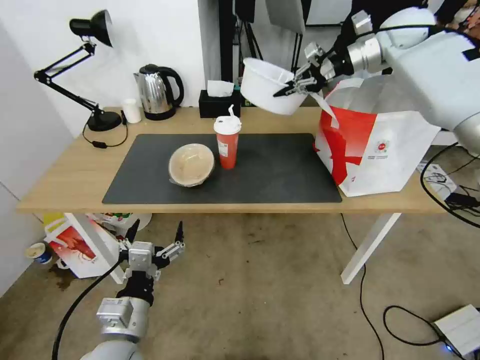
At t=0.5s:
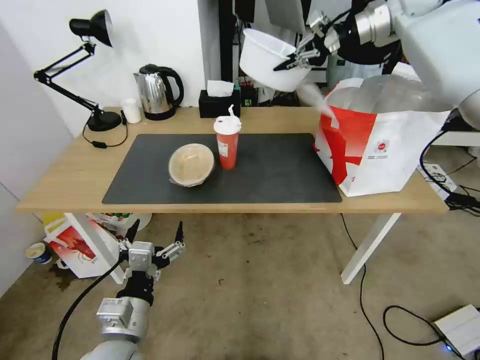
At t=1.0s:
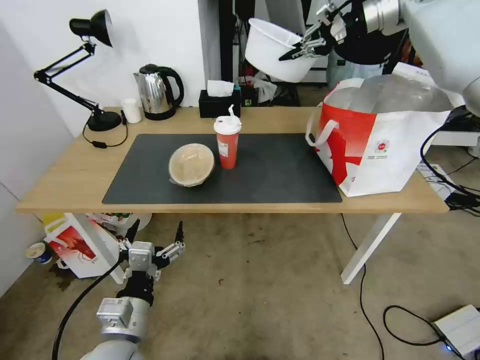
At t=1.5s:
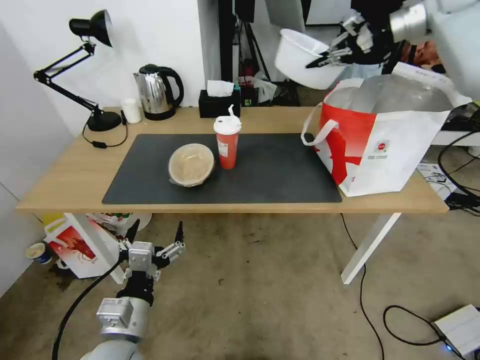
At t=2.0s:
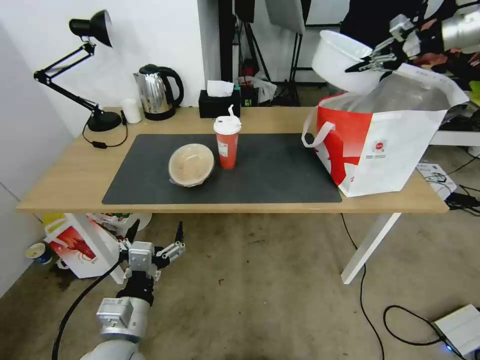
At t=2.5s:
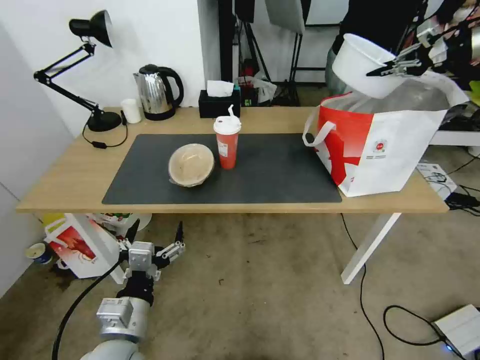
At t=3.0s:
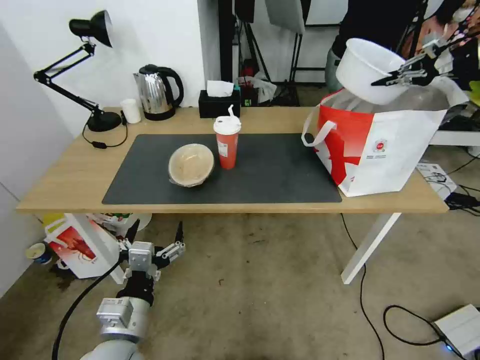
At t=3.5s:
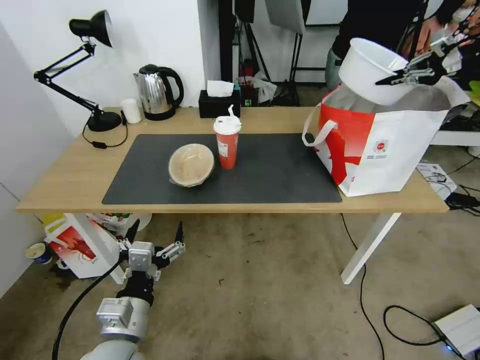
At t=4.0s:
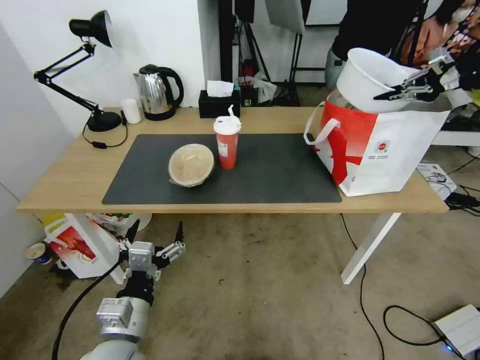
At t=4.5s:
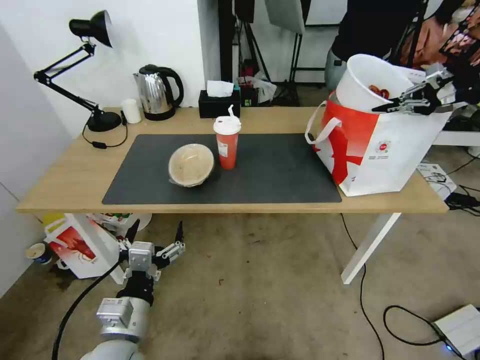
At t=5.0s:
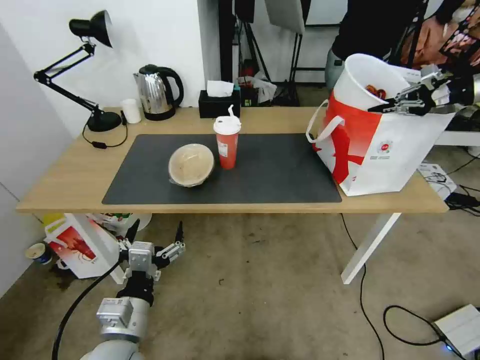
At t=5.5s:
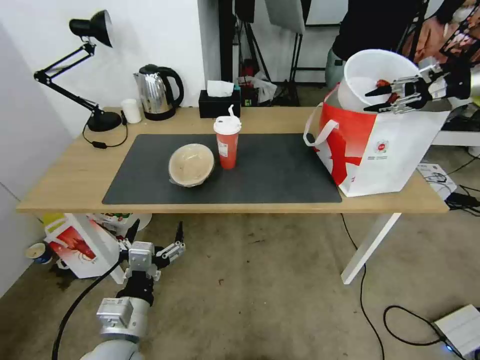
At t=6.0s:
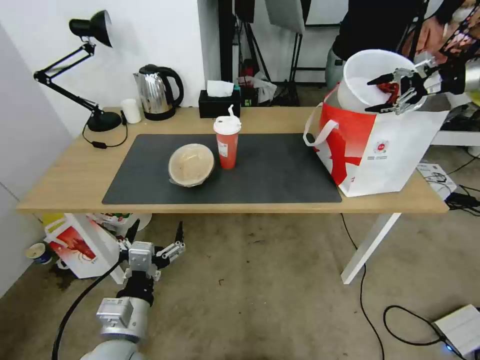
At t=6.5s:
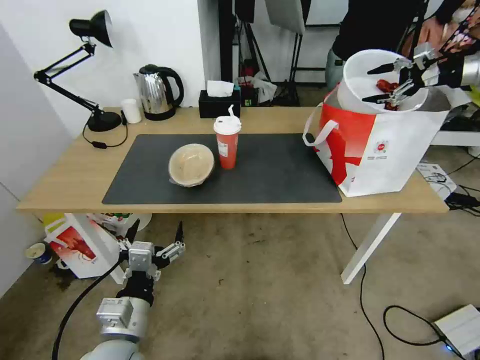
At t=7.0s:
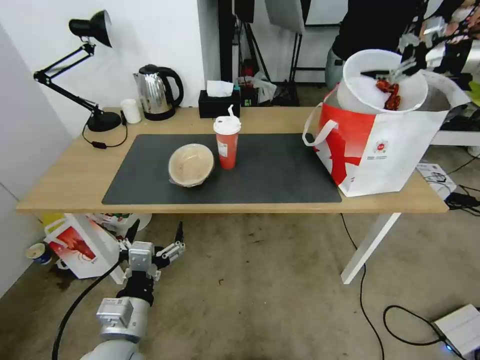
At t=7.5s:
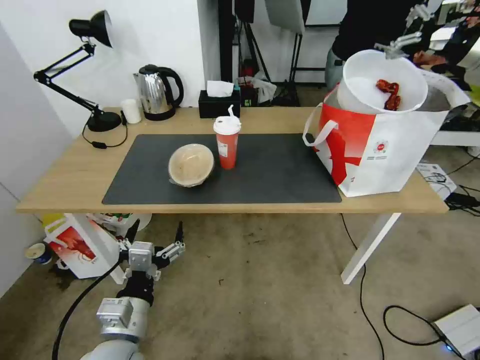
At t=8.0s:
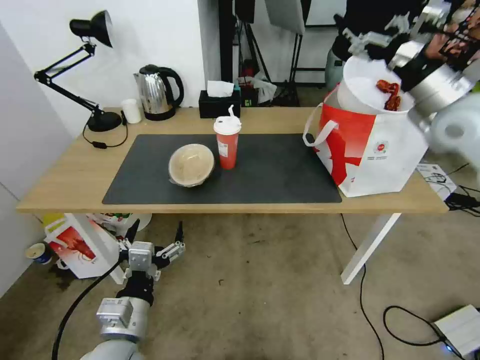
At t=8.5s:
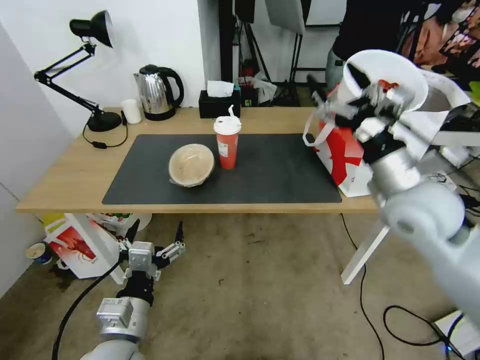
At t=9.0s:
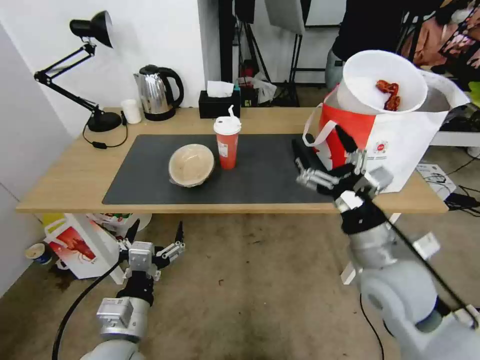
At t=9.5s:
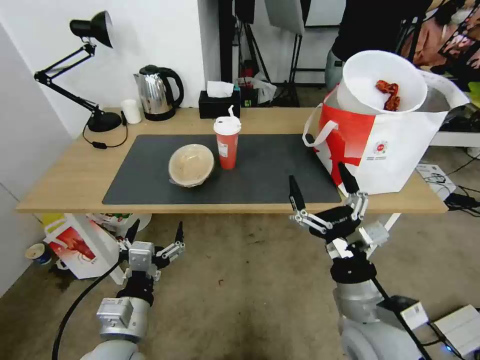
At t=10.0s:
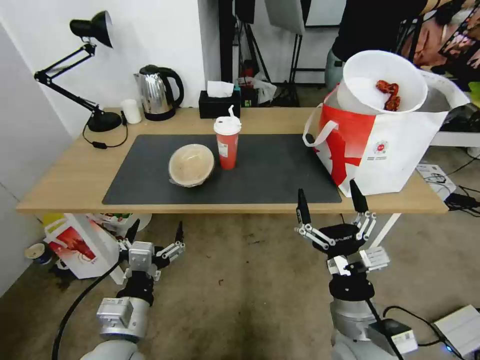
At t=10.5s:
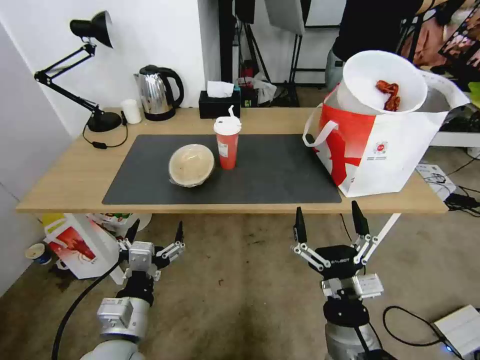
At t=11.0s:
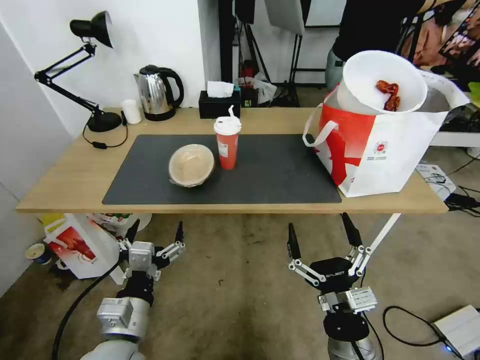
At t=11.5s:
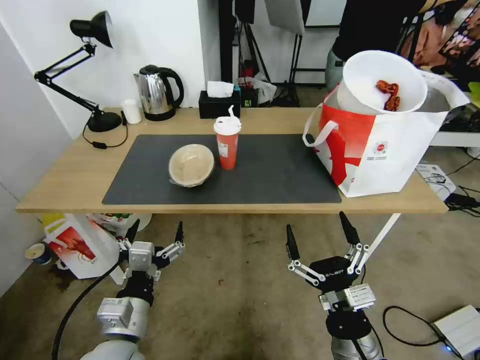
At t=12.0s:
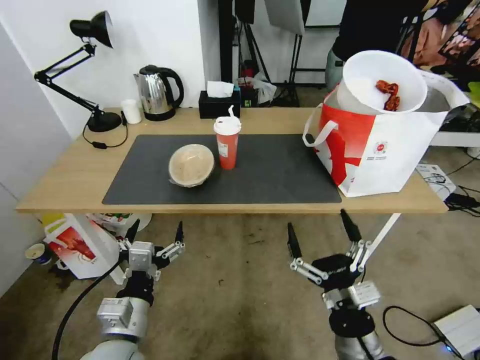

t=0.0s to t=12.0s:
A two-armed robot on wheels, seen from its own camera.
Task of the whole recording: Pick up the trash from the table and place it into the takeout bag.
t=0.0s to t=2.0s: The right gripper travels to the right by approximately 15 cm.
t=2.0s to t=4.0s: The right gripper is displaced backward, to the right and downward by some 10 cm.
t=4.0s to t=6.0s: The right gripper opens up.
t=6.0s to t=8.0s: The right gripper shifts roughly 25 cm to the left and backward.
t=8.0s to t=10.0s: The right gripper moves backward, downward and to the left, roughly 40 cm.
t=10.0s to t=12.0s: The right gripper changes place by approximately 5 cm.

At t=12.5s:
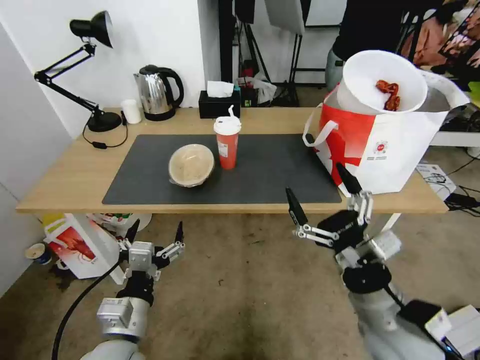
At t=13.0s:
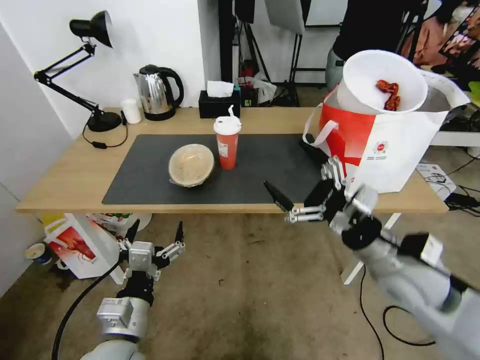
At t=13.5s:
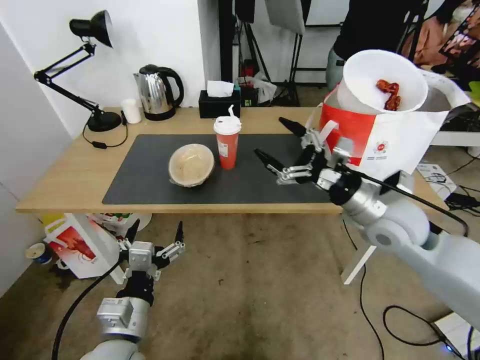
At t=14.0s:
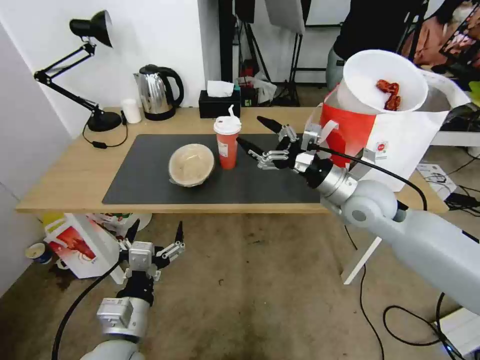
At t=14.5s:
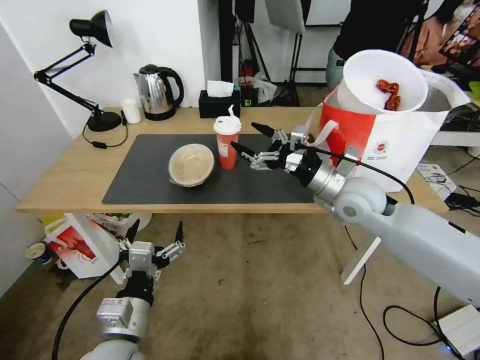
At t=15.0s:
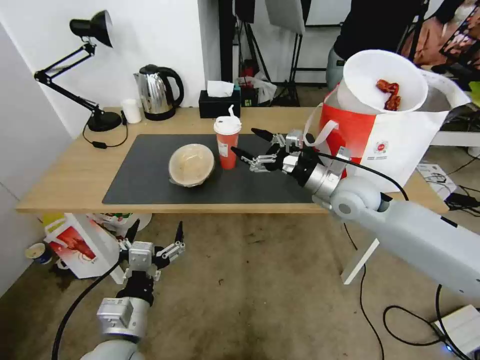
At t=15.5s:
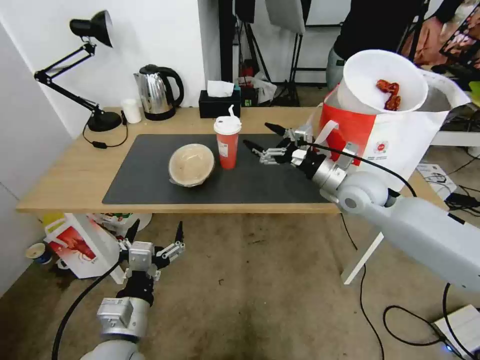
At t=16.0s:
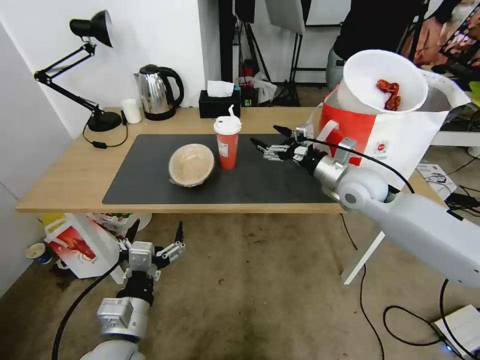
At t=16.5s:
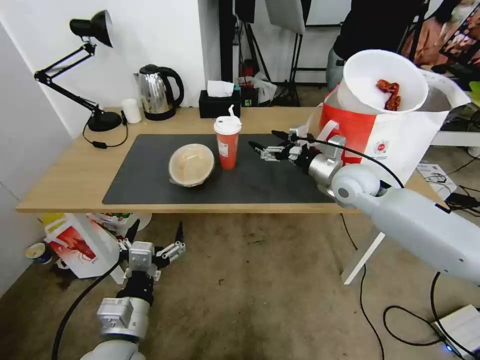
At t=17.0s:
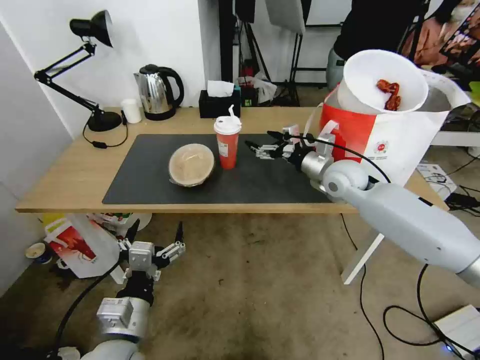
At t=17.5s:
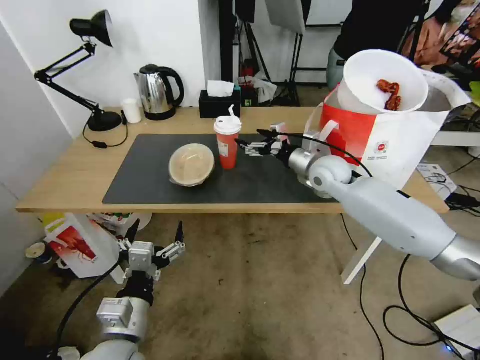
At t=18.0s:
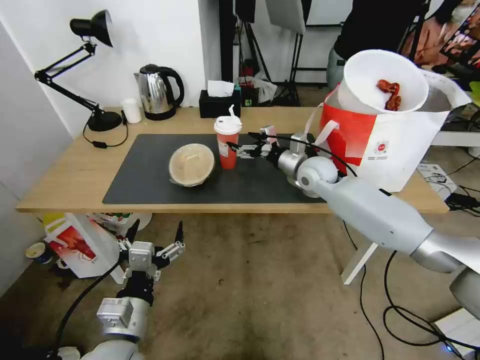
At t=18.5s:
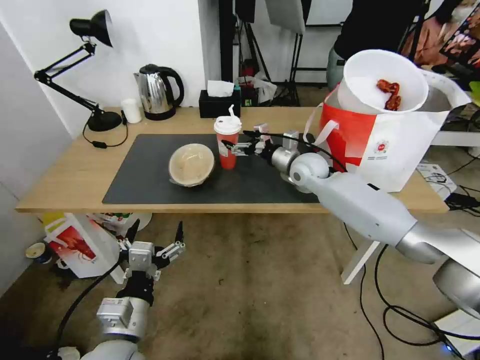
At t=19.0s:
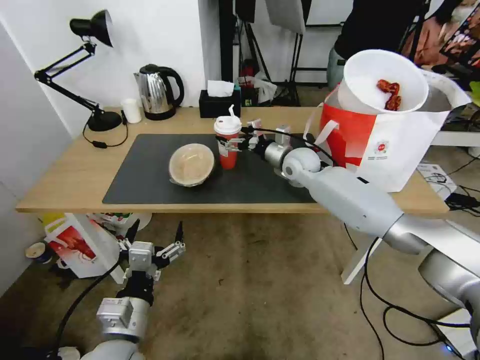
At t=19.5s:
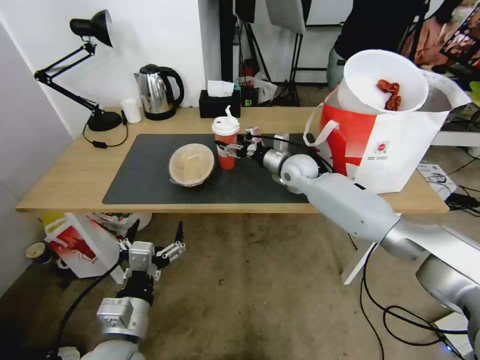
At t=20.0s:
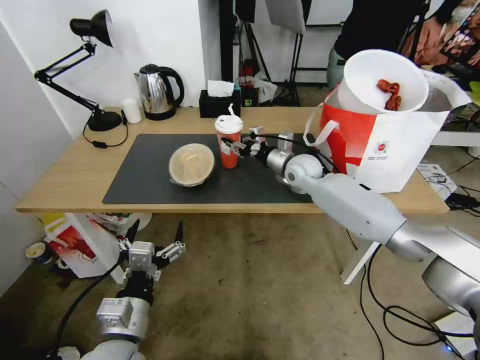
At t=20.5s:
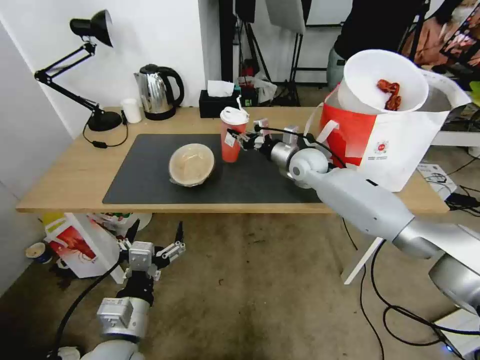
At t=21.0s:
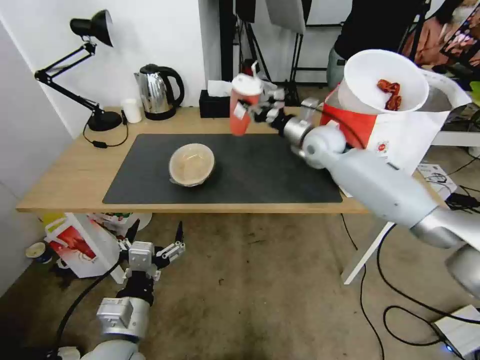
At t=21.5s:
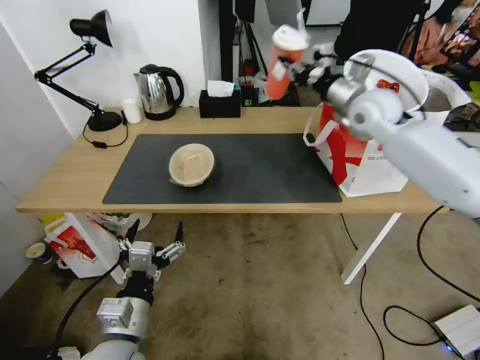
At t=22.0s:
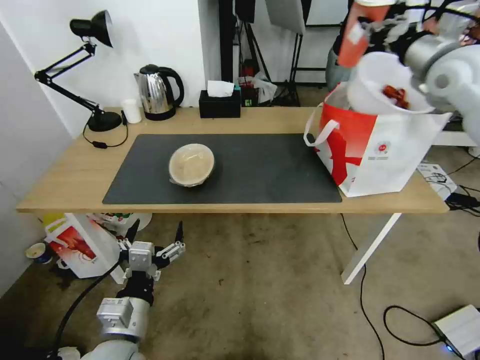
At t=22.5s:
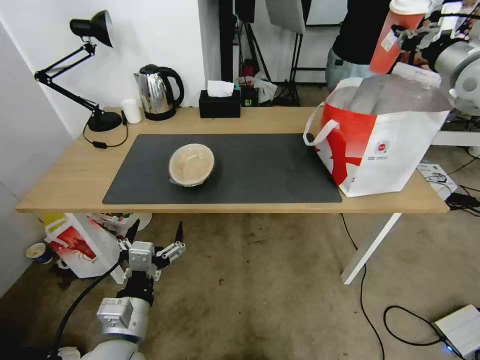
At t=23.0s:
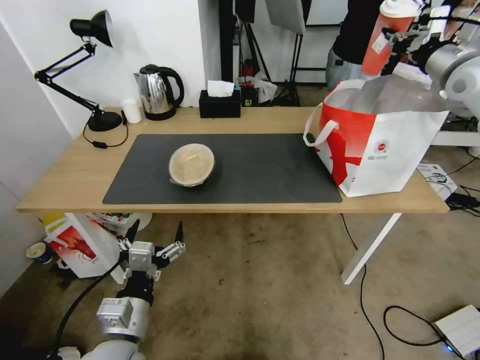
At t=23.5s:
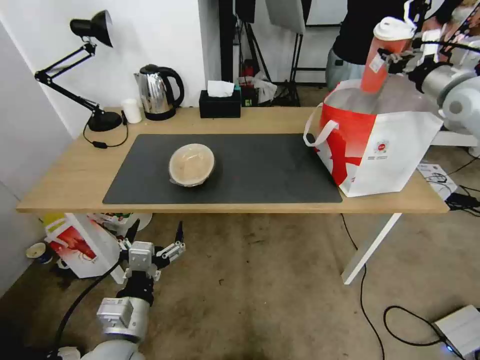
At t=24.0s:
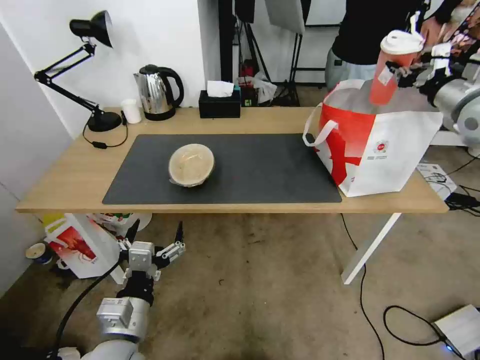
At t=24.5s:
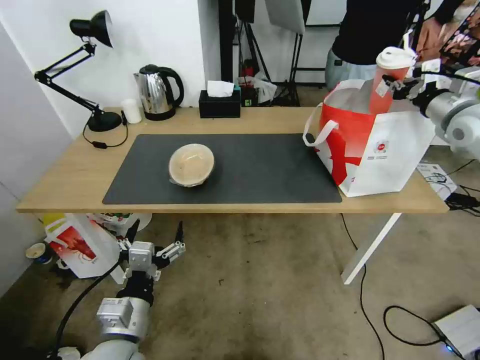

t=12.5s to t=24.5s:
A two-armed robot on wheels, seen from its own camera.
Task of the whole recording: Pick up the trash from the table and place it into the takeout bag.
t=12.5s to t=14.5s: The right gripper shifts about 20 cm forward.
t=14.5s to t=16.5s: The right gripper is displaced forward by roughly 5 cm.
t=16.5s to t=18.5s: The right gripper shifts approximately 10 cm forward and to the left.
t=18.5s to t=20.5s: The right gripper closes its fingers.
t=20.5s to t=22.5s: The right gripper goes approximately 35 cm to the right and upward.
t=22.5s to t=24.5s: The right gripper moves downward, about 10 cm.

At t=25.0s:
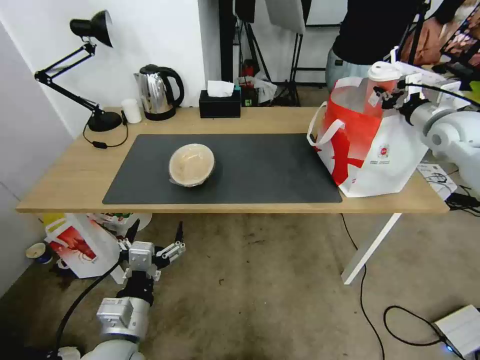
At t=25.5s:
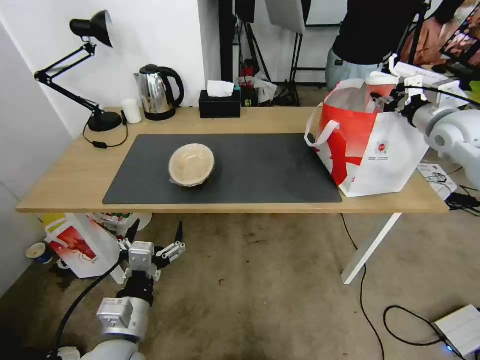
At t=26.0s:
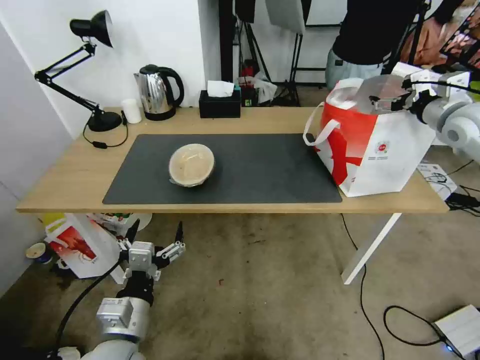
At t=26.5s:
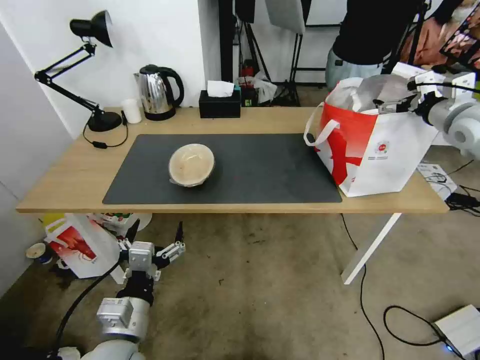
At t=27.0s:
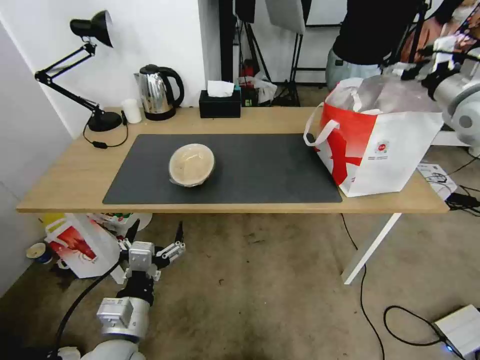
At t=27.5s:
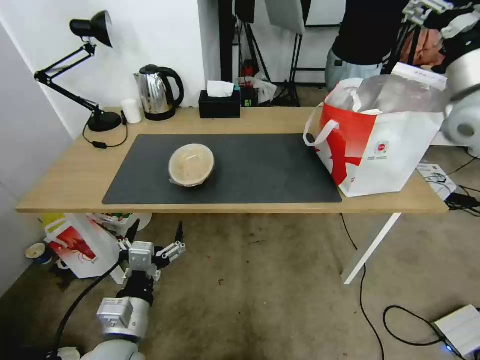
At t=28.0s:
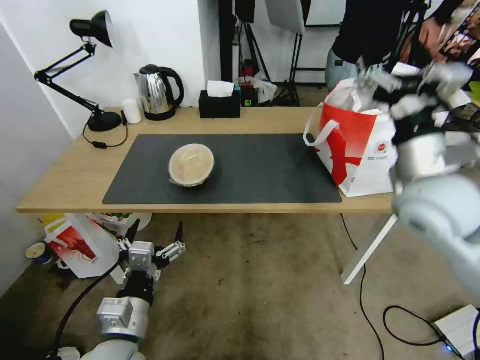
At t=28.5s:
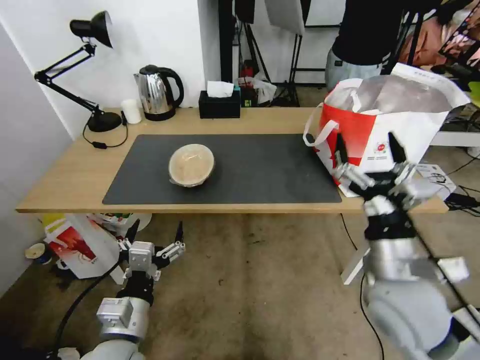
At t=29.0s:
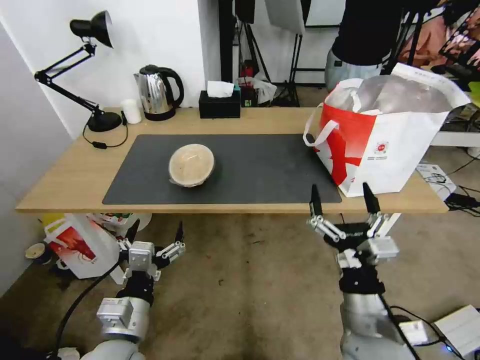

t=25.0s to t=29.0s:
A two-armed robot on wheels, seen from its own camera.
Task of the whole recording: Pick up the trash from the table and place it into the takeout bag.
t=25.0s to t=27.0s: The right gripper heads upward, covering some 5 cm, and opens up.
t=27.0s to t=29.0s: The right gripper shifts approximately 50 cm backward, downward and to the left.
